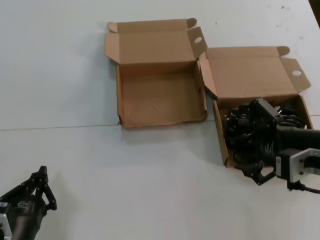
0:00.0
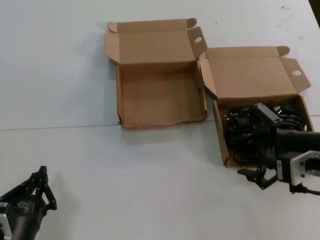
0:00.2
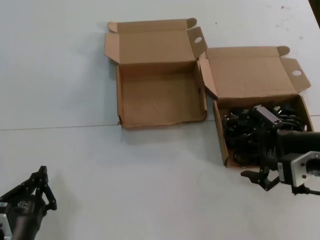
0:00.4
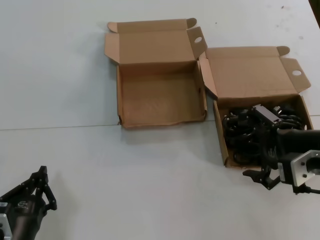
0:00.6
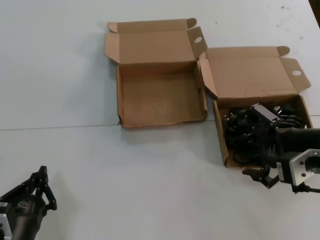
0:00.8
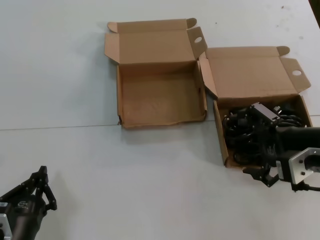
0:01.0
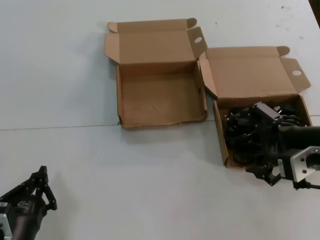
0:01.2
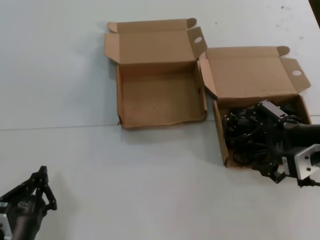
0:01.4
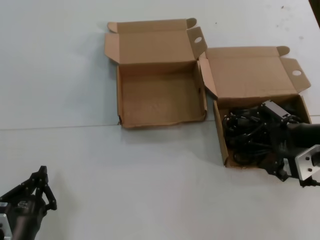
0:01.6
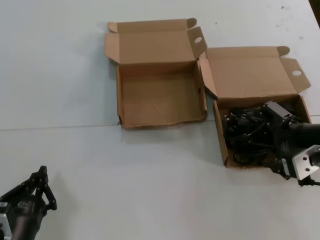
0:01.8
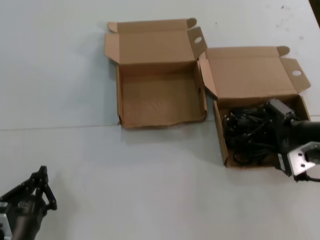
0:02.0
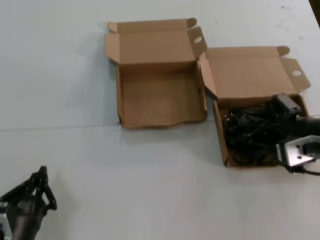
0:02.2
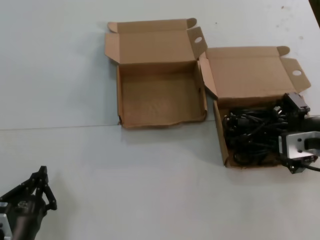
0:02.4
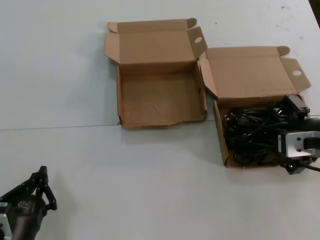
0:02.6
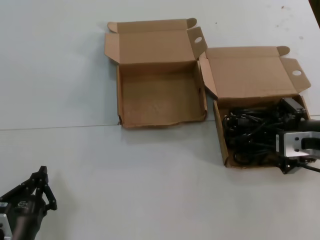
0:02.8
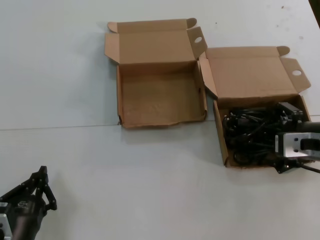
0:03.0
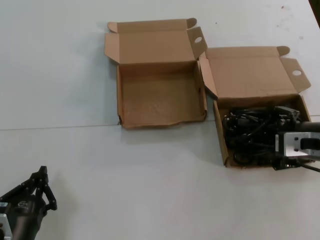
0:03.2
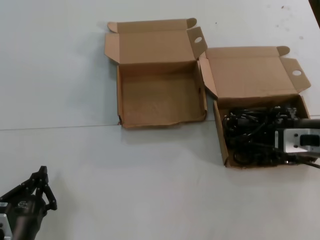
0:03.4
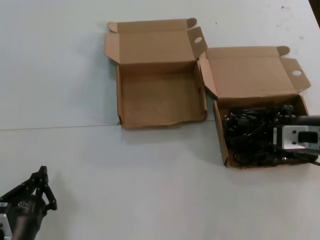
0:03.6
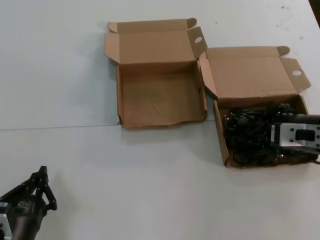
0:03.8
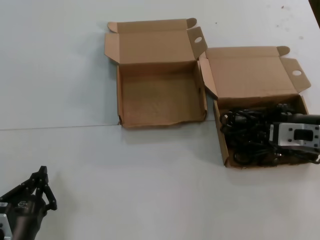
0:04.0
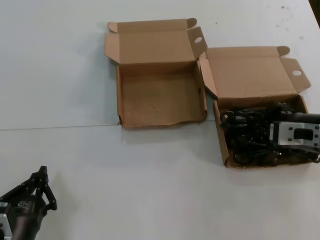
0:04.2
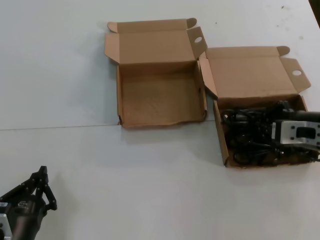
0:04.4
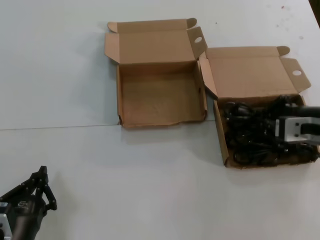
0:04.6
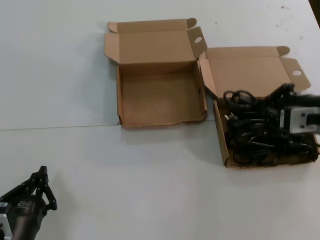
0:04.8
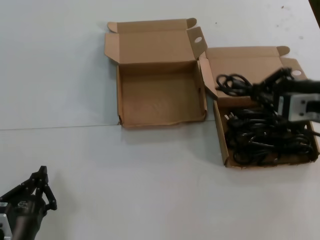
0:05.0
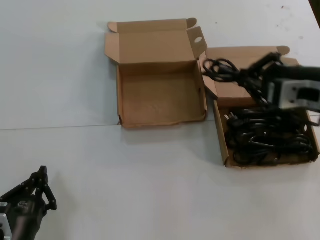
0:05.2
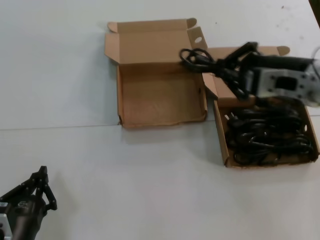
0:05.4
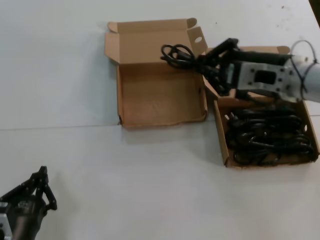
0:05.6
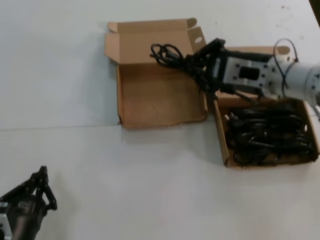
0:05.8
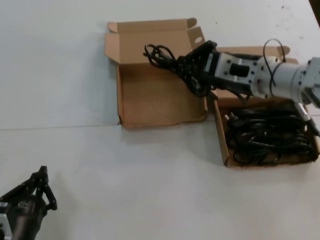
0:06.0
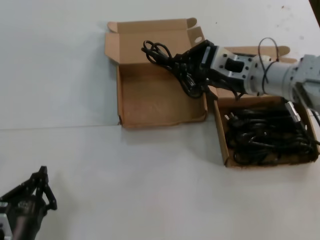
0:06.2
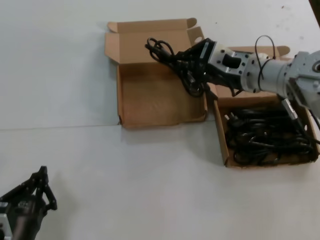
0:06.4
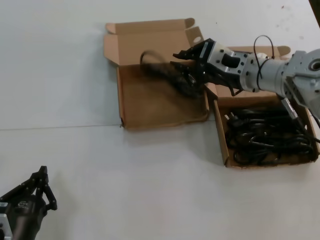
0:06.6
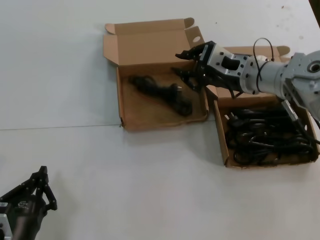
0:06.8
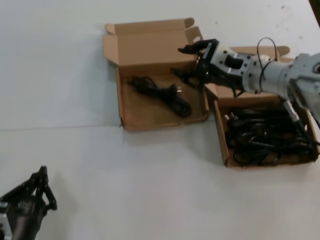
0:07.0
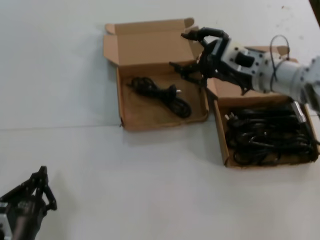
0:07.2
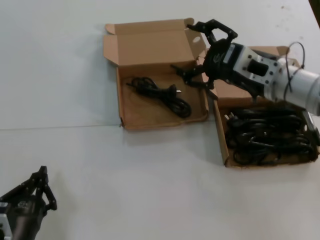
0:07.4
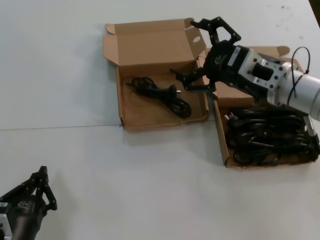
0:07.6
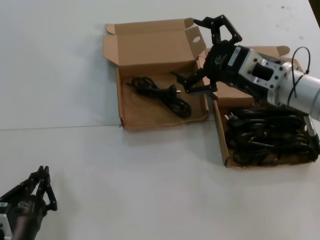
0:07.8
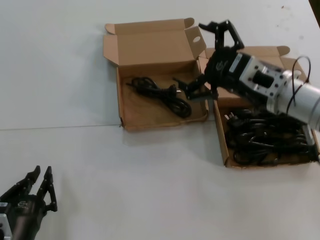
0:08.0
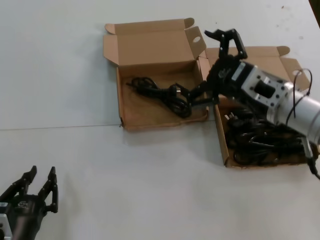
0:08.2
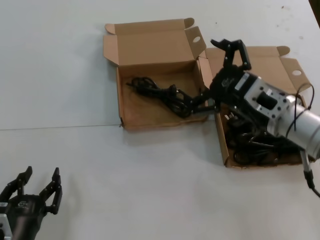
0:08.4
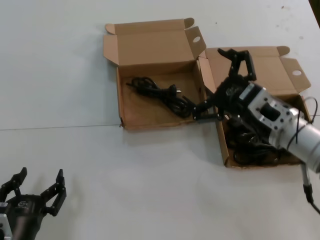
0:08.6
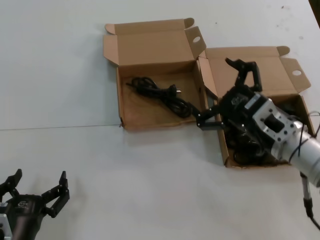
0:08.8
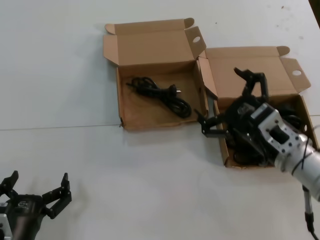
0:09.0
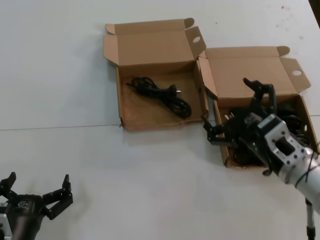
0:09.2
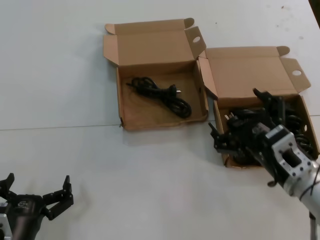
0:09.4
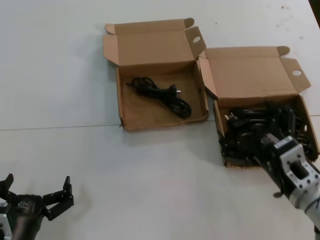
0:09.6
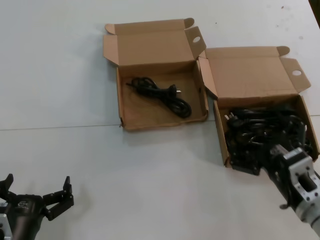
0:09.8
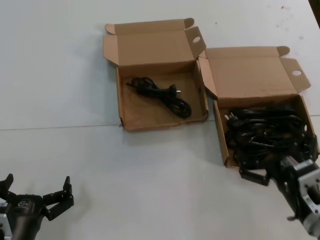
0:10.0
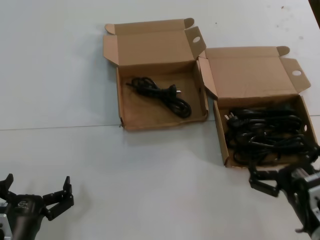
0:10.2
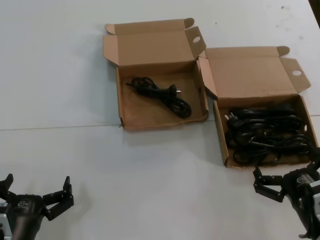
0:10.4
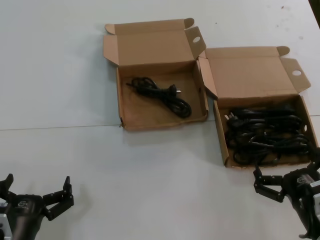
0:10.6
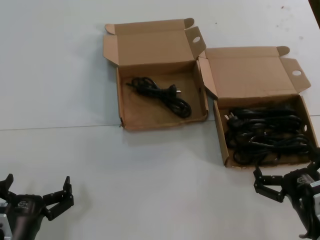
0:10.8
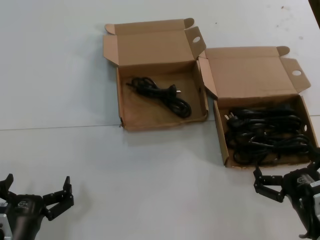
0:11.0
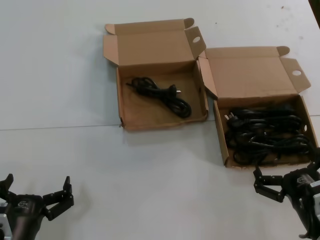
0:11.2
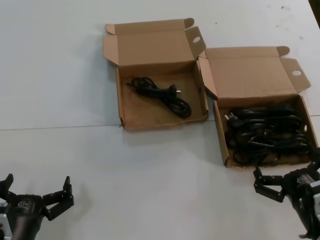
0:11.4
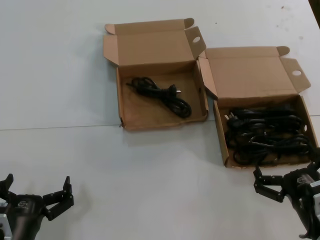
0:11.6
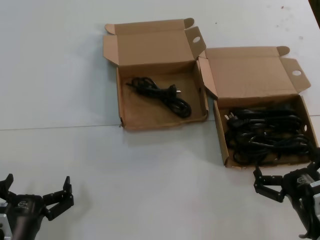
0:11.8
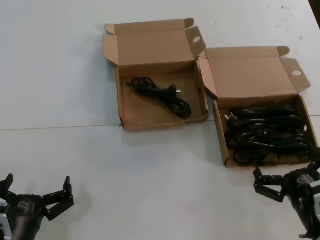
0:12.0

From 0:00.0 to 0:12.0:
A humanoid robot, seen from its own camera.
Task of the whole recording: take the parts from the box containing them and put them into an empty box.
Step, from 0:00.0 to 0:04.0: Grasp the data cable.
Step, from 0:04.2 to 0:06.8: Place the data cable in the another box.
From 0:00.0 to 0:01.6: The hands move only a little.
From 0:03.0 to 0:04.4: The hands move only a little.
From 0:04.4 to 0:06.0: The right hand goes some 15 cm to the left, upward and forward.
From 0:06.0 to 0:07.6: There are only small adjustments of the hands.
From 0:07.6 to 0:09.0: The right hand heads downward and backward, covering approximately 15 cm.
From 0:09.0 to 0:10.4: The right hand travels backward and downward by approximately 15 cm.
From 0:10.4 to 0:12.0: Both hands stay about where they are.

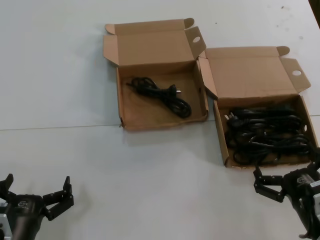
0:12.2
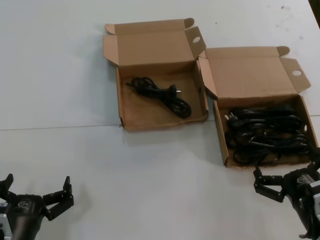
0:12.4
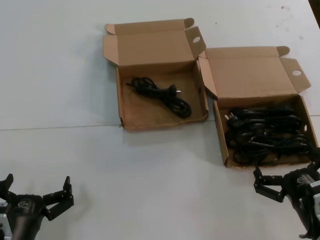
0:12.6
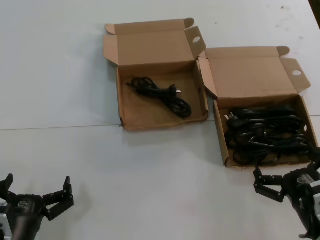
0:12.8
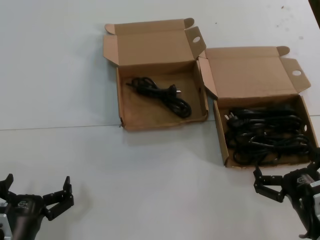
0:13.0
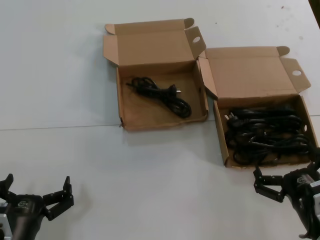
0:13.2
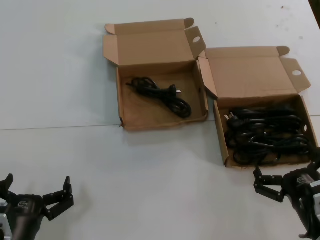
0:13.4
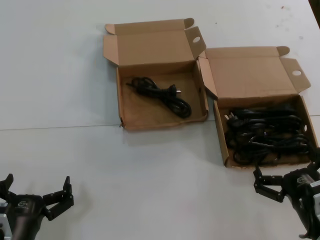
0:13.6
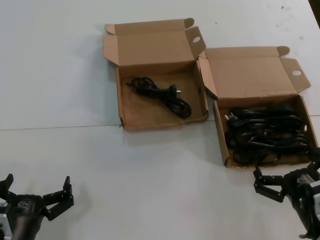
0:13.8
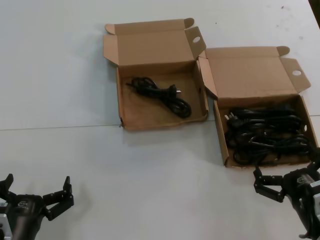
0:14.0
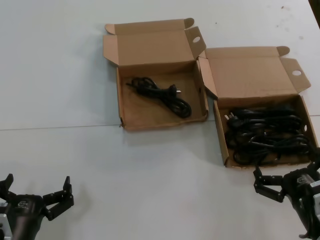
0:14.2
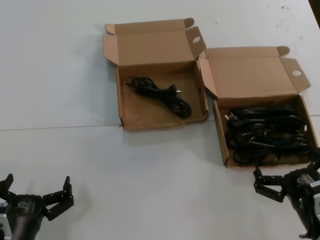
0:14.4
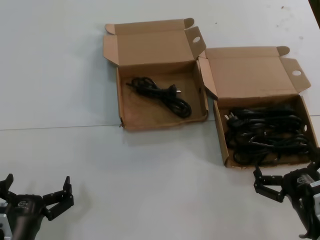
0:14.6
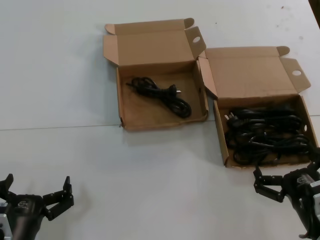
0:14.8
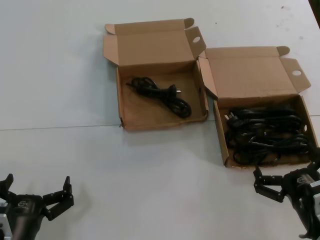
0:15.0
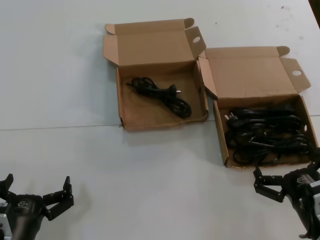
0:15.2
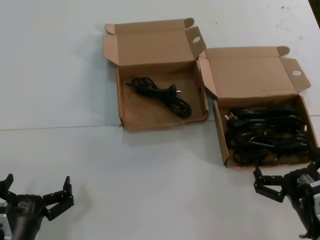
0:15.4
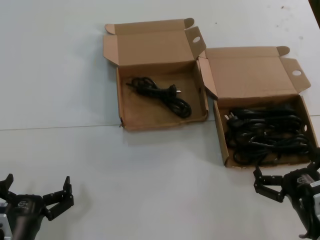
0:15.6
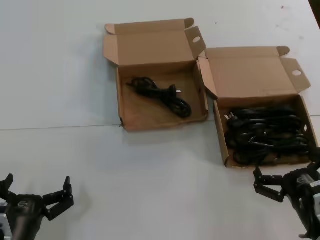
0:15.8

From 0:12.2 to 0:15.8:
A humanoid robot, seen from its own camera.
Task of the whole recording: take the parts from the box containing them and put them into an empty box.
From 0:12.2 to 0:15.8: The two hands keep their place.
